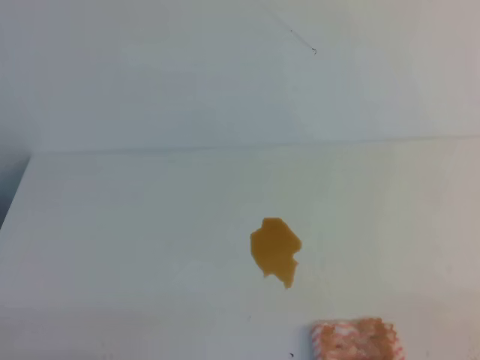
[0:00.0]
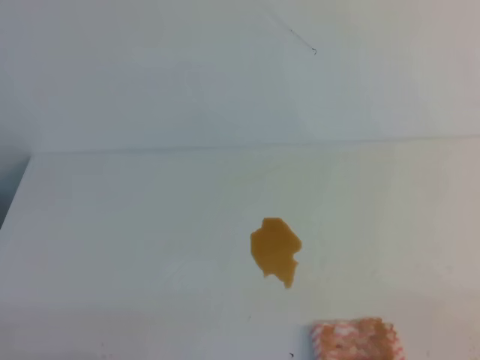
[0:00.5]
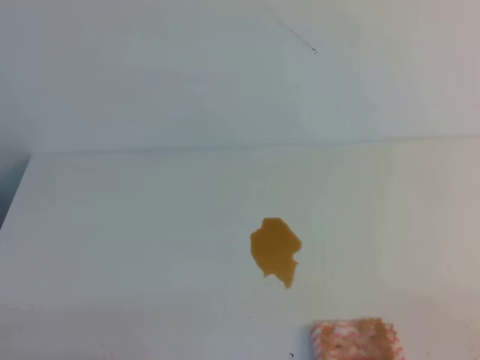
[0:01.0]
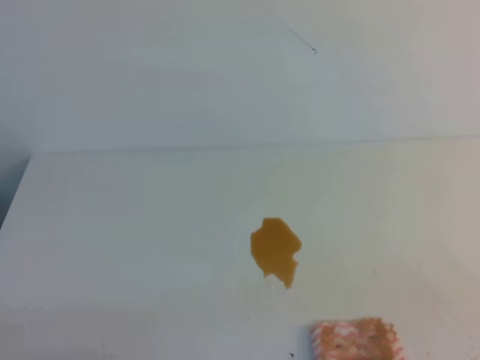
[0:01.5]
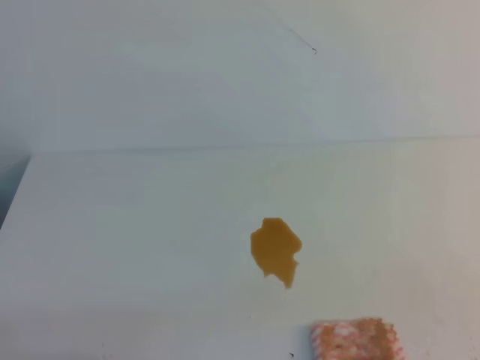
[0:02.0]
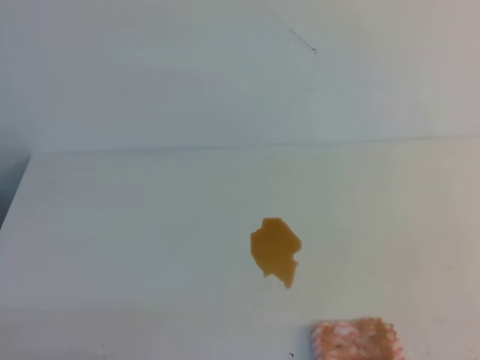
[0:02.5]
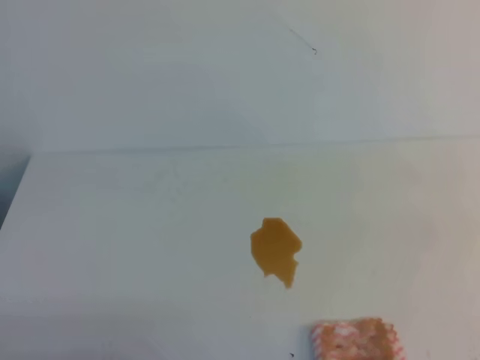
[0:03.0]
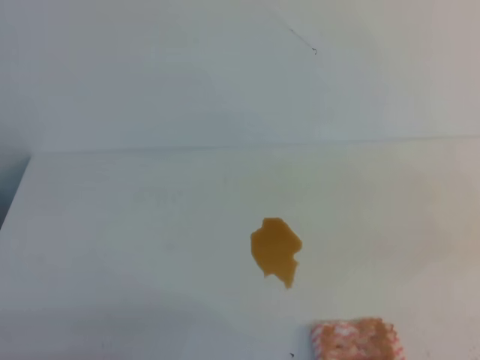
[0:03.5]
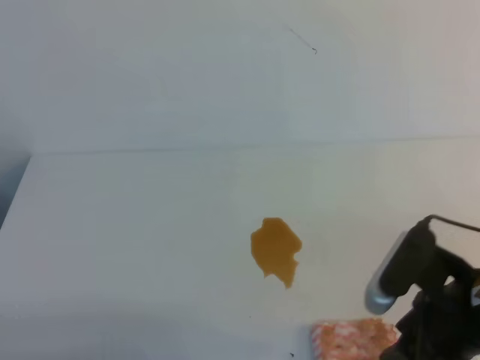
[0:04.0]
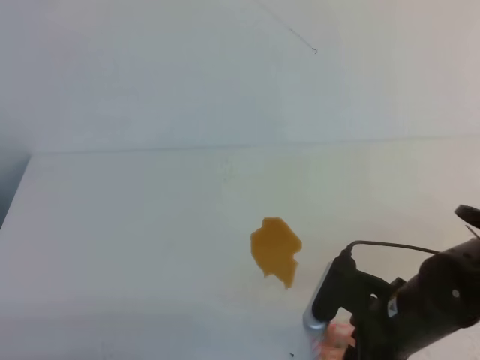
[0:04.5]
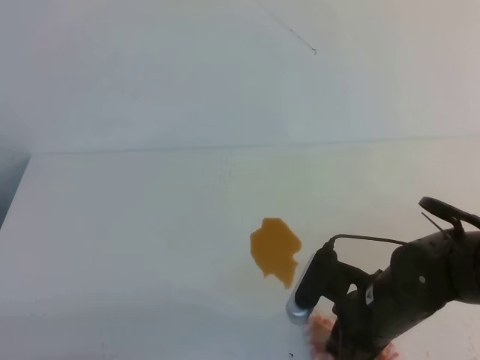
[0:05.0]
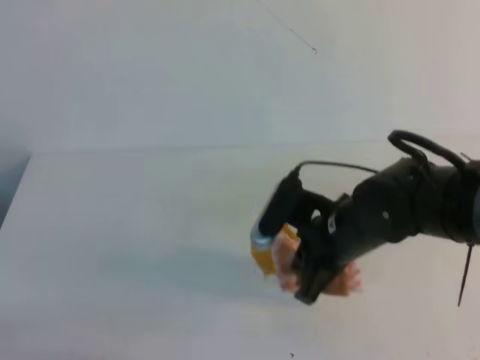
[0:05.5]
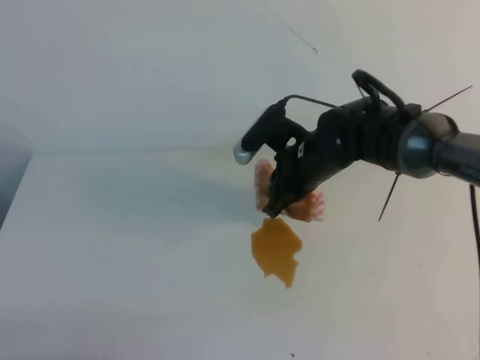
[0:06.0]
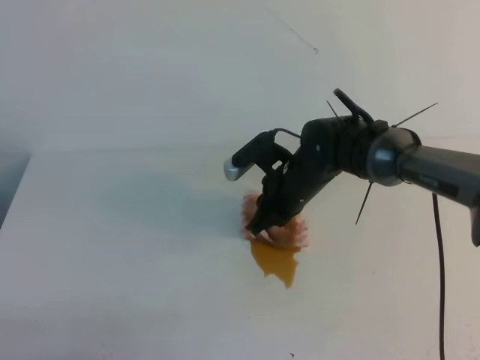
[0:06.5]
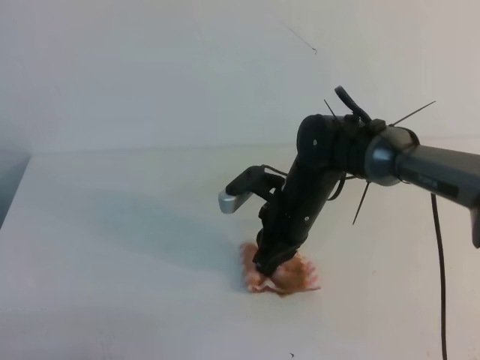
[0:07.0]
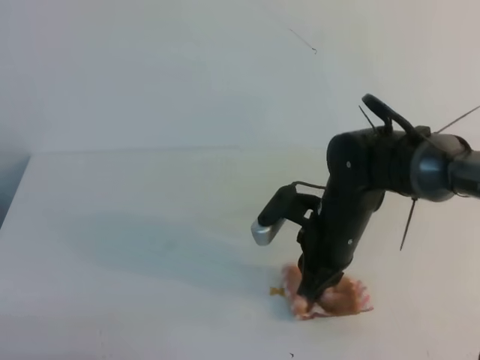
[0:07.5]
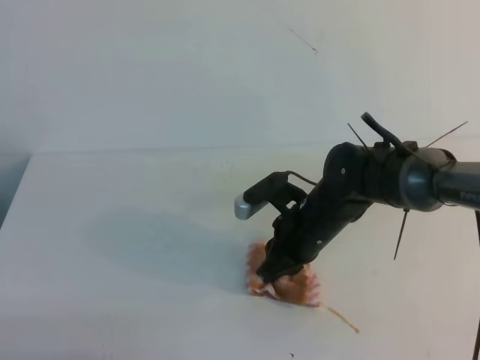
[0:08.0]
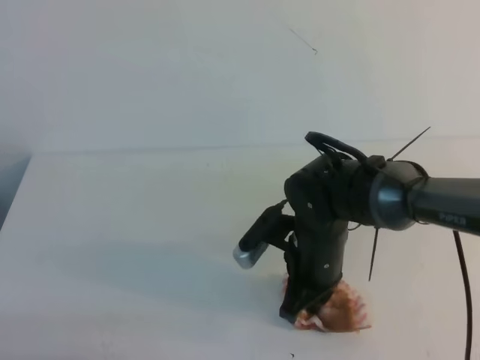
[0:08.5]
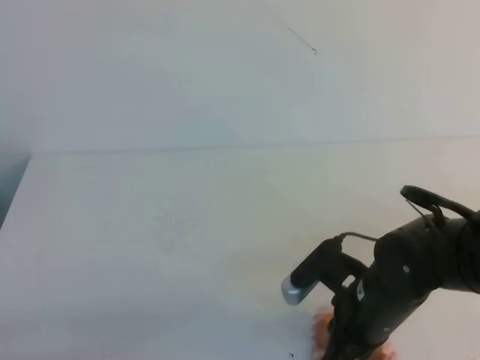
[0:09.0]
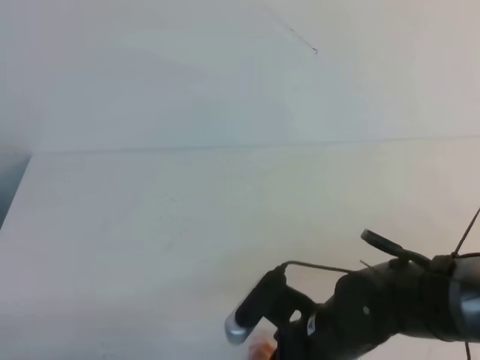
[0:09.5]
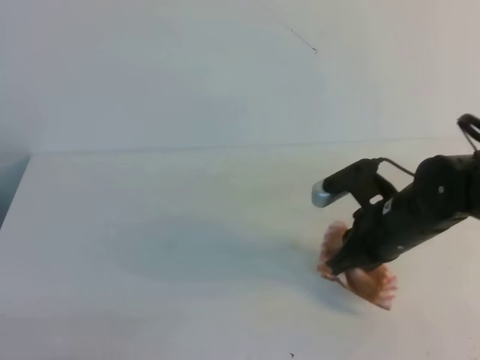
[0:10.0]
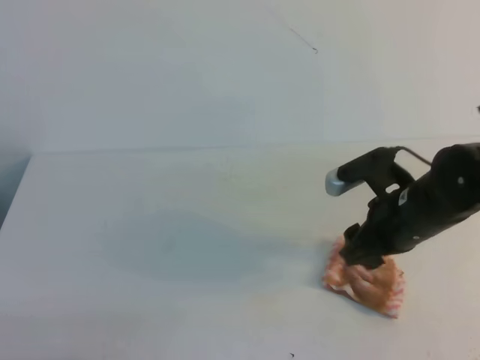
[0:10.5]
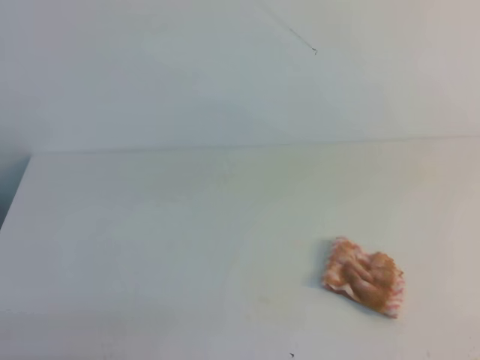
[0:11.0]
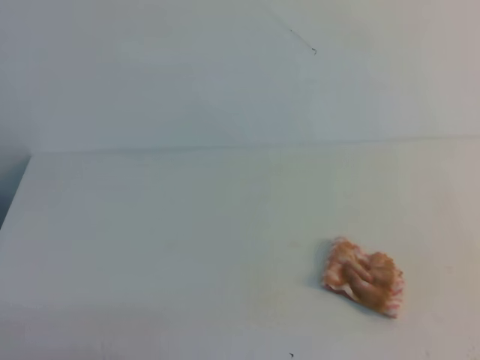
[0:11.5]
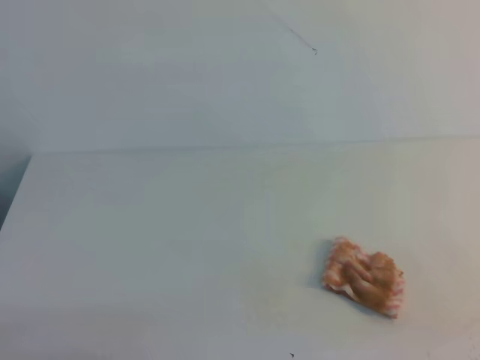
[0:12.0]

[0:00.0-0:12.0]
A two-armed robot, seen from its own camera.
0:02.0 to 0:04.0: The right gripper is displaced forward and to the left by some 20 cm, and opens its fingers.
0:04.0 to 0:06.0: The right gripper is displaced forward and to the left by roughly 25 cm, and closes up.
0:06.0 to 0:08.0: The right gripper shifts some 10 cm backward and downward.
0:08.0 to 0:10.0: The right gripper moves to the right, about 5 cm, and goes backward and returns, about 15 cm each way.
0:10.0 to 0:12.0: The right gripper travels backward, to the right and upward by roughly 30 cm, and opens, then closes once more.

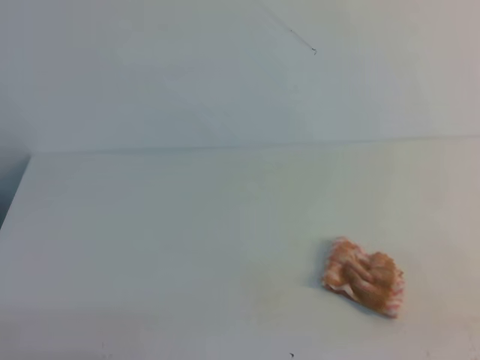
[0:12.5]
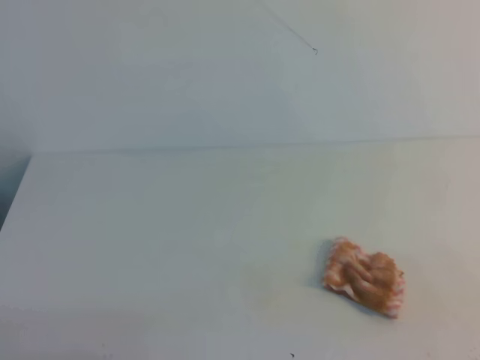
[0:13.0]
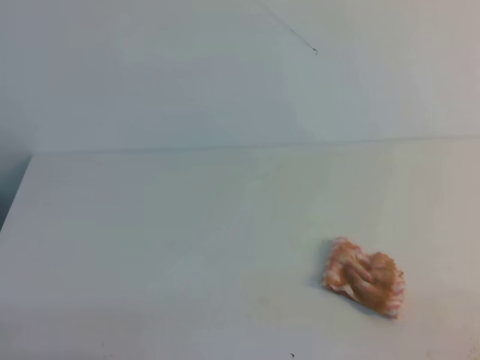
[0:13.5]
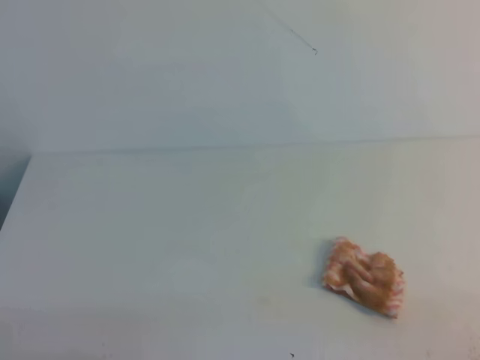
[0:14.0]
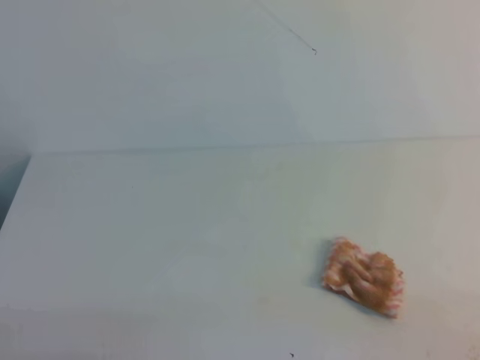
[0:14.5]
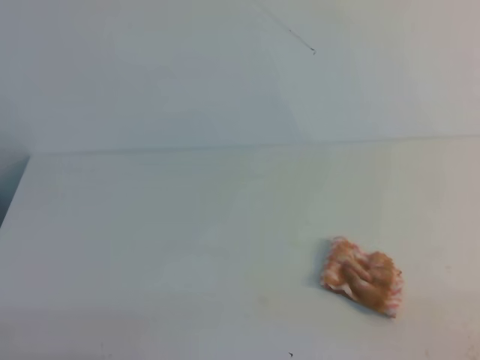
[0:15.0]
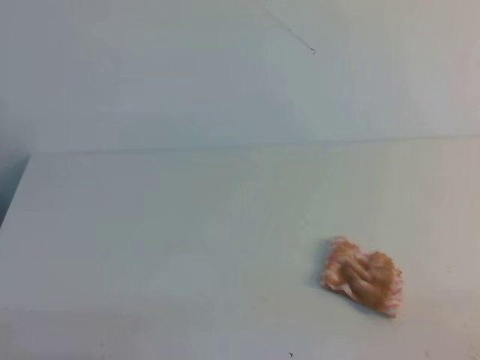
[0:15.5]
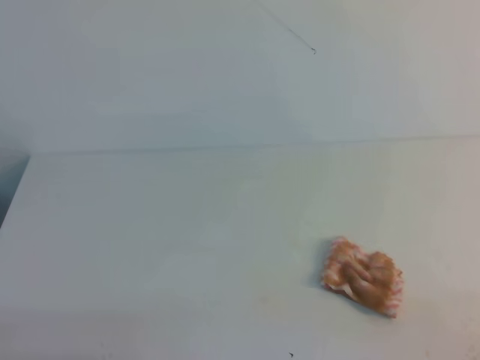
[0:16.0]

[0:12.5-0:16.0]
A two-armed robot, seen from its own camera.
0:14.5 to 0:16.0: Both grippers stay put.
